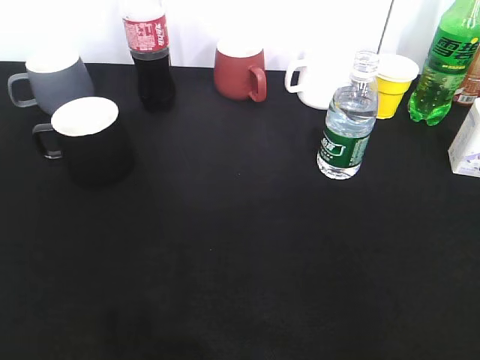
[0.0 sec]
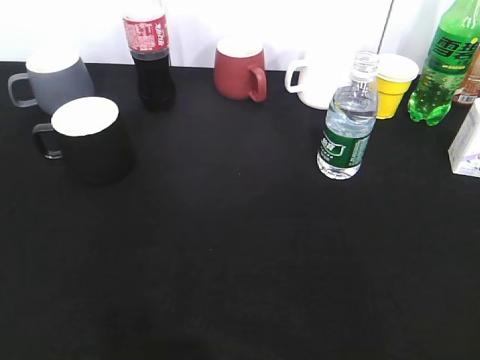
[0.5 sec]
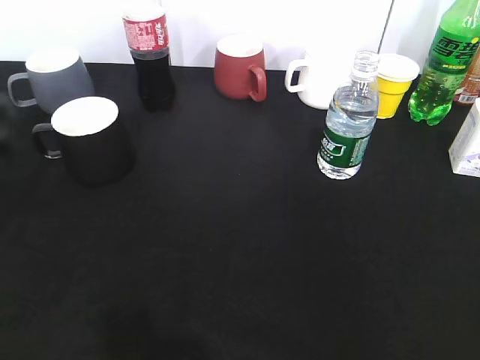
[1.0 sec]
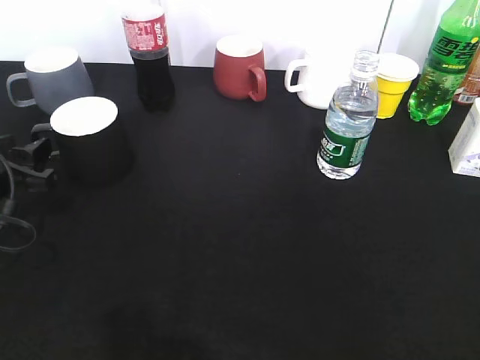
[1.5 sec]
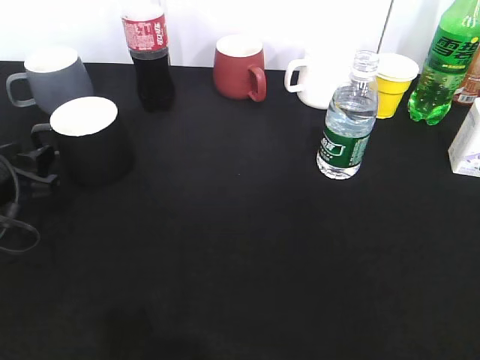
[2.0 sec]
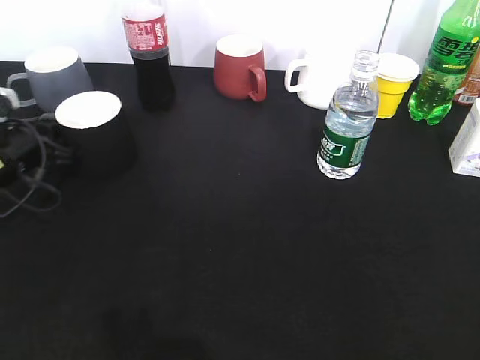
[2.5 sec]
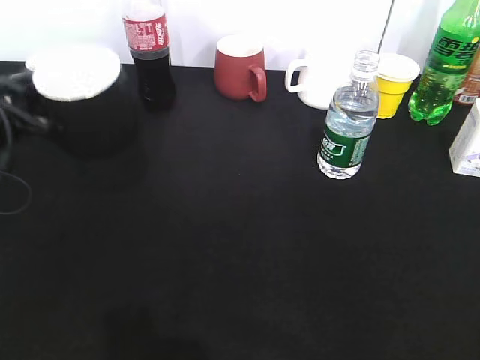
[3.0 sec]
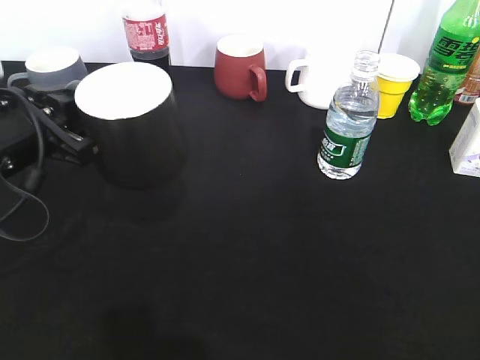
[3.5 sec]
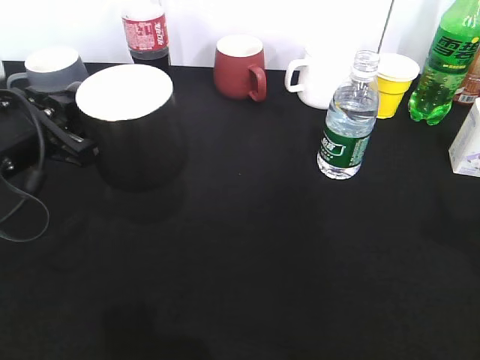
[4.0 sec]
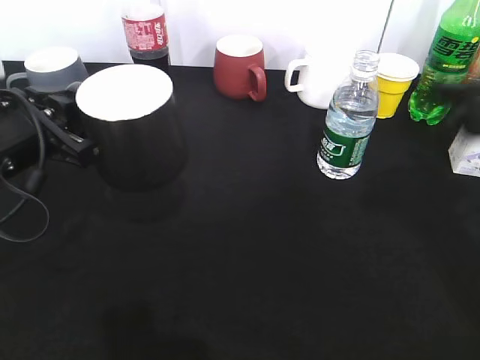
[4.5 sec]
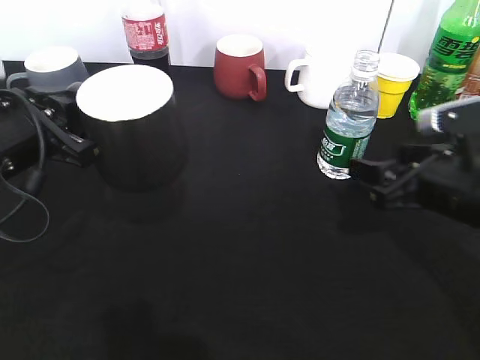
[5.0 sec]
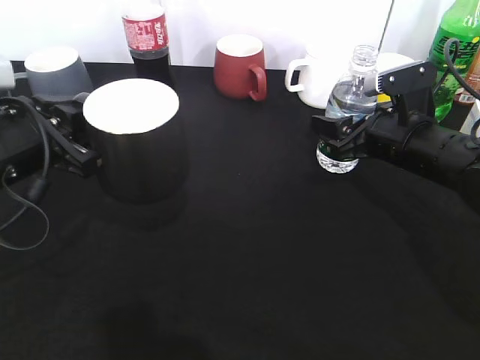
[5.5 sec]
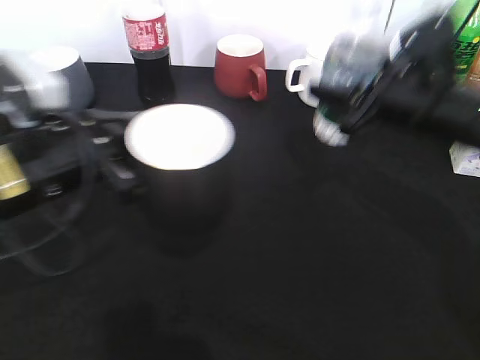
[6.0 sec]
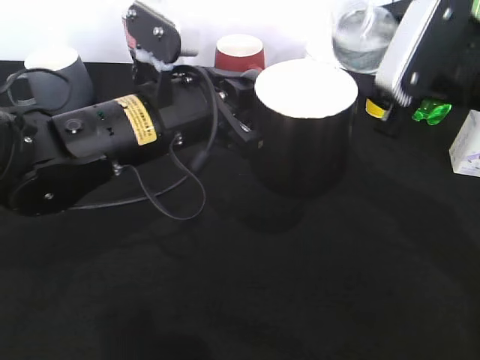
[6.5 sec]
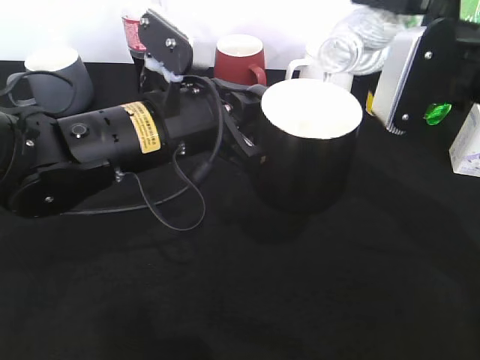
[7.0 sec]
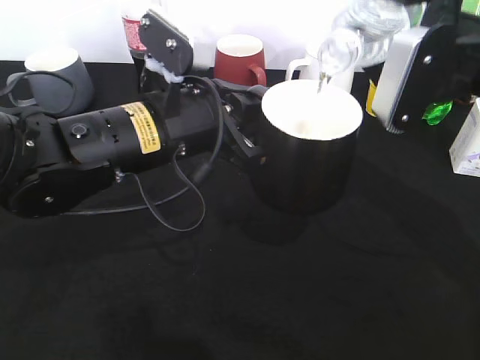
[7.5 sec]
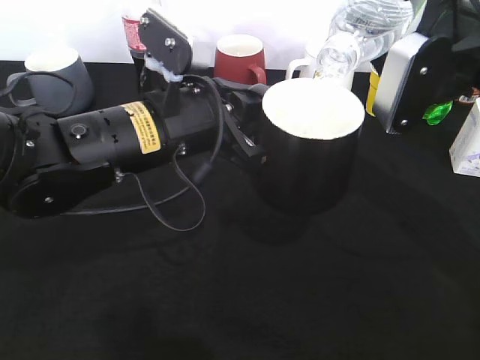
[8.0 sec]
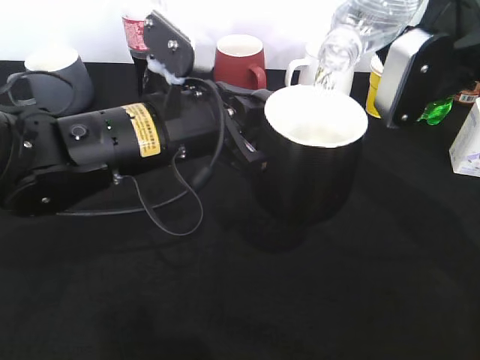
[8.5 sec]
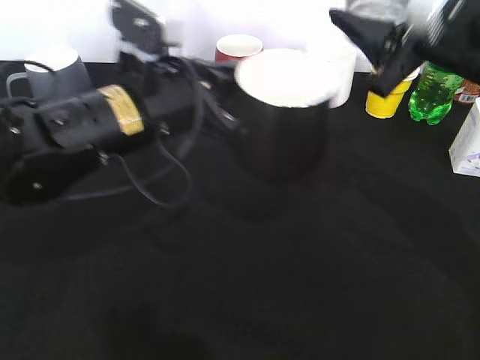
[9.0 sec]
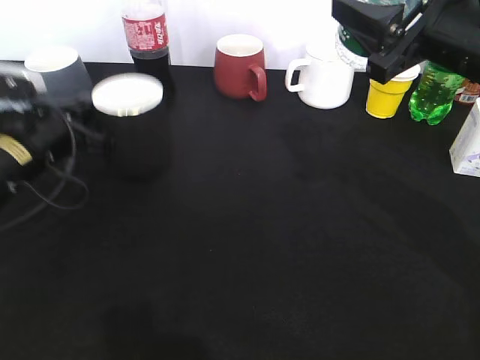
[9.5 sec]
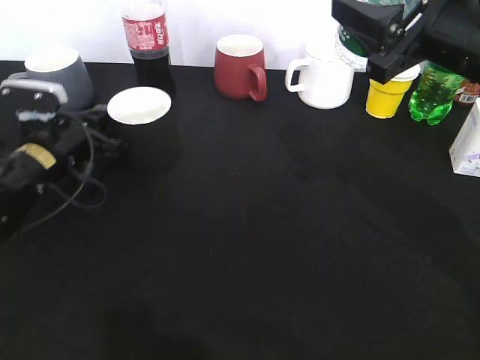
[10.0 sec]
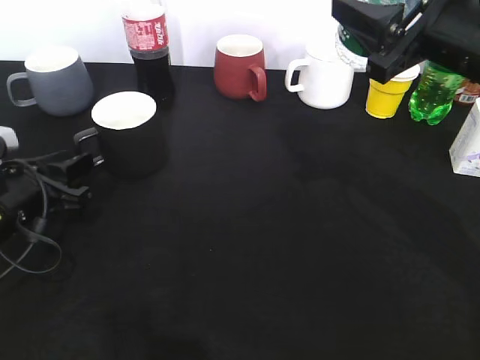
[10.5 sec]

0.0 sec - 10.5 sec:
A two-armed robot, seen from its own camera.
Step, 0.5 sec - 2.5 sec: Grasp the black cup with left gripper.
Step, 3.0 sec - 3.5 sec: Lift the black cup with left gripper.
Step, 4.0 sec - 5.5 sec: Grasp the bottle with water with right gripper.
Step, 6.0 sec - 8.5 sec: Pour the water from bottle to cup with right gripper.
Step, 9.0 sec - 10.5 sec: Place the black cup on the table with left gripper.
0.0 sec - 2.0 sec: The left gripper is displaced forward and downward by some 30 cm.
2.0 sec - 4.0 sec: The right gripper shifts some 15 cm forward and upward, while the left gripper travels upward and to the right by roughly 10 cm, and closes its fingers.
4.0 sec - 6.5 sec: The left gripper shifts some 15 cm to the right. Meanwhile the right gripper shifts roughly 20 cm forward, to the left and downward, and closes its fingers.
8.5 sec - 10.5 sec: The left gripper shifts approximately 20 cm to the left and downward, and opens its fingers.

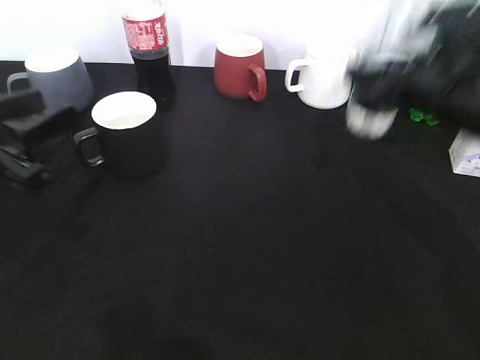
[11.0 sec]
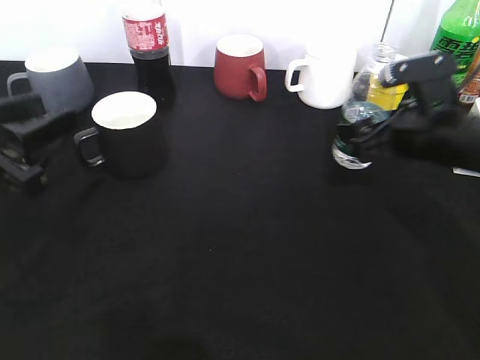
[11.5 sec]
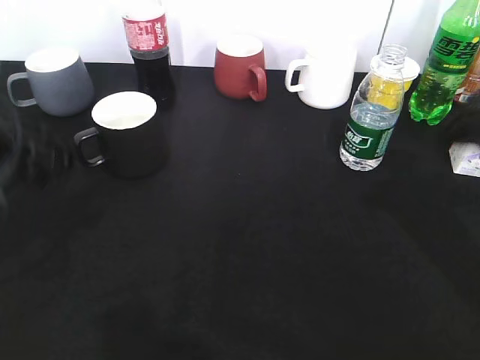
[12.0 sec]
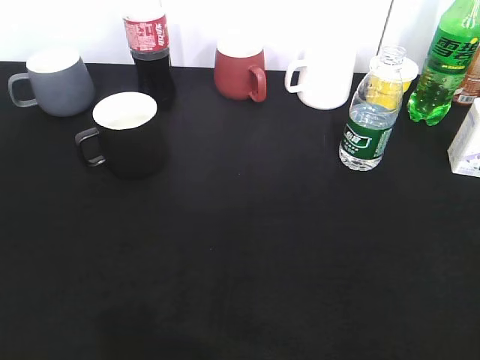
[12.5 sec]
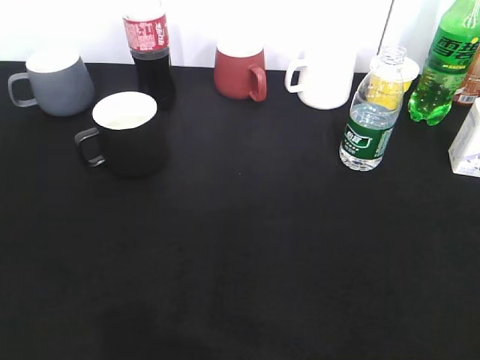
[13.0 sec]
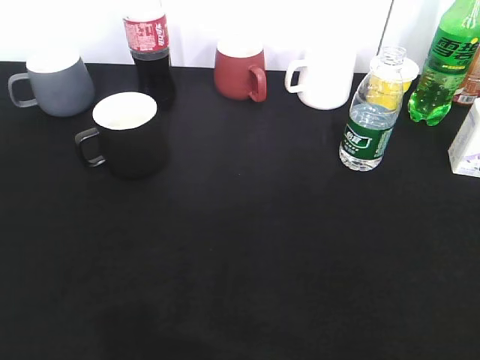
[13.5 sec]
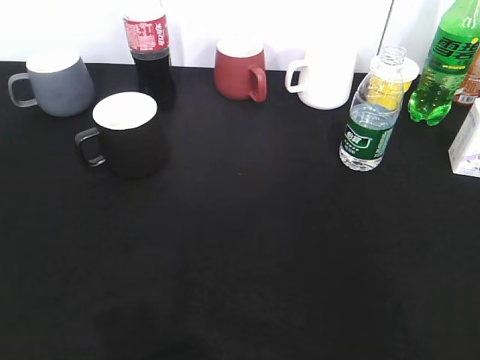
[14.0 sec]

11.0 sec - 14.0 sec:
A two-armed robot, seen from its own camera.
Step, 11.0 sec - 11.5 sec: Place the water bottle on the table with right gripper.
11.0 sec - 12.5 sec: The right gripper goes about 35 cm backward, and opens up. The left gripper shifts some 25 cm backward, to the left and upward.
